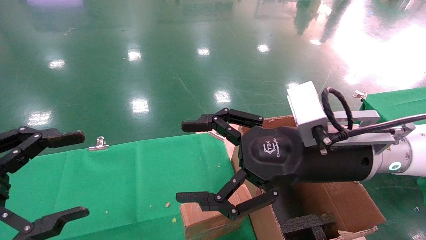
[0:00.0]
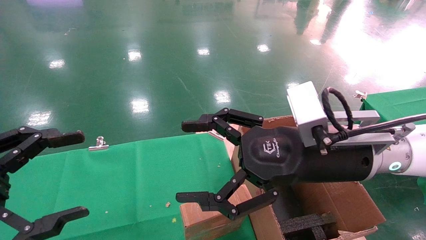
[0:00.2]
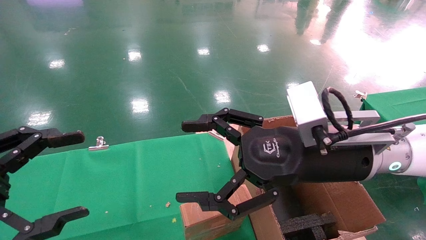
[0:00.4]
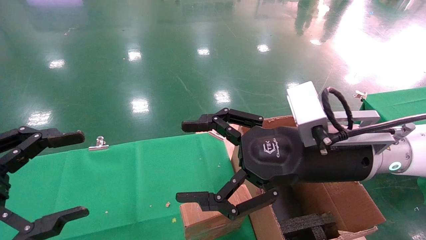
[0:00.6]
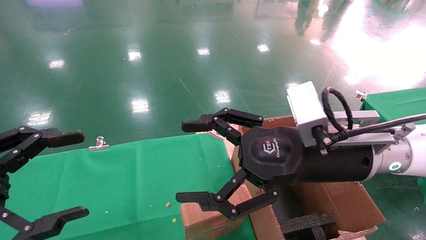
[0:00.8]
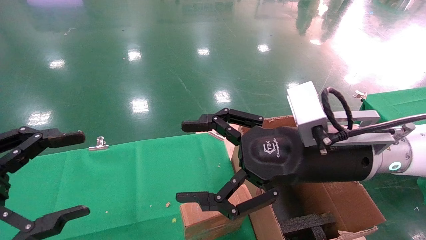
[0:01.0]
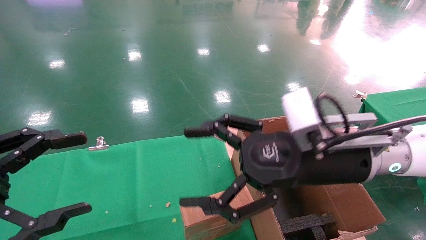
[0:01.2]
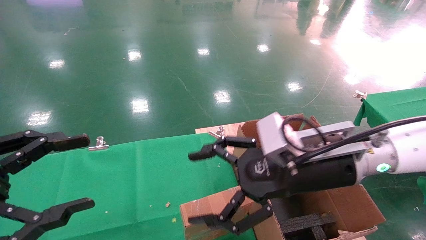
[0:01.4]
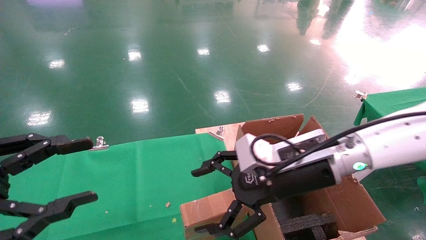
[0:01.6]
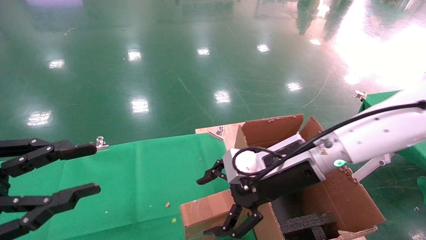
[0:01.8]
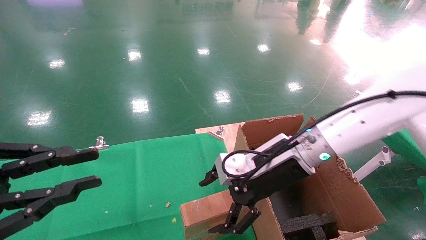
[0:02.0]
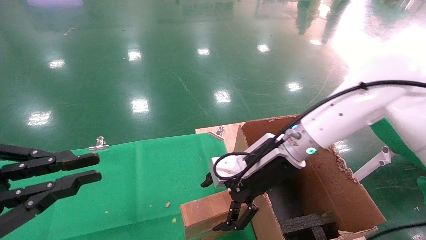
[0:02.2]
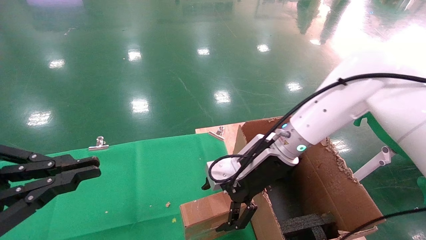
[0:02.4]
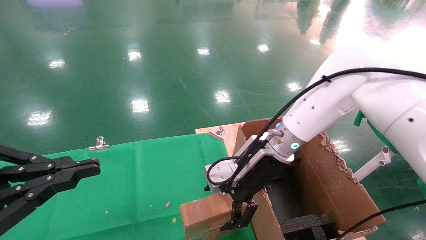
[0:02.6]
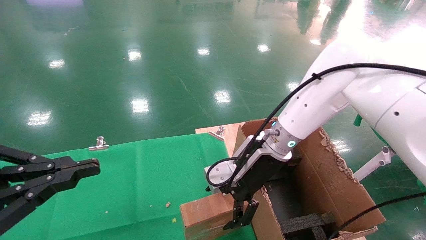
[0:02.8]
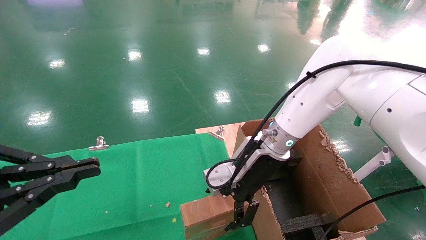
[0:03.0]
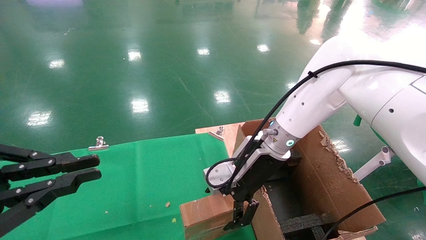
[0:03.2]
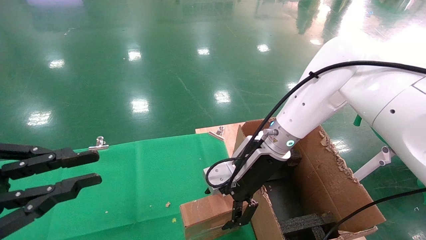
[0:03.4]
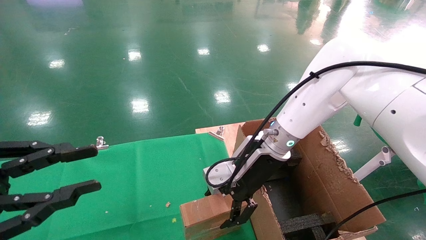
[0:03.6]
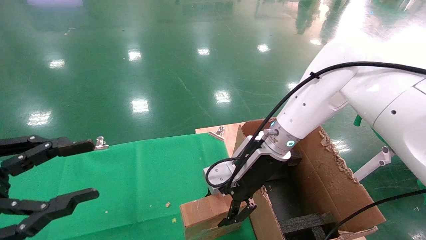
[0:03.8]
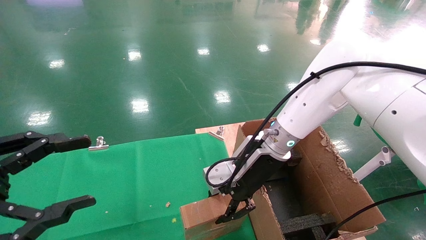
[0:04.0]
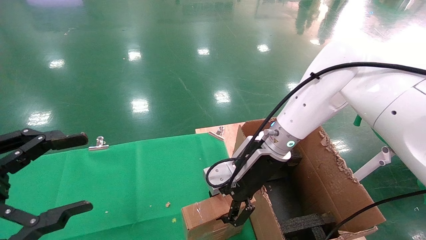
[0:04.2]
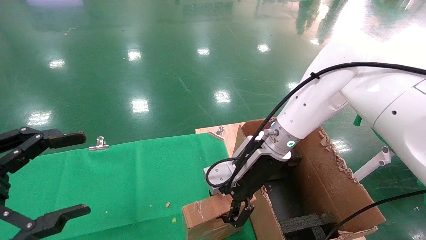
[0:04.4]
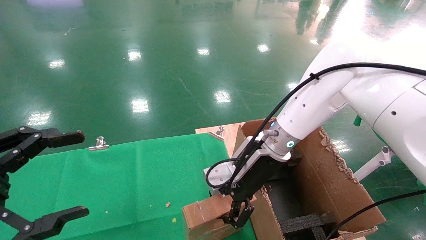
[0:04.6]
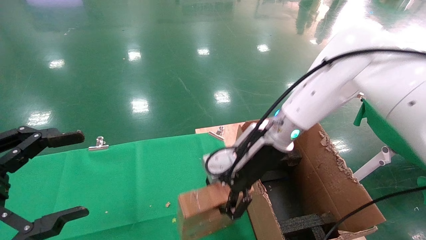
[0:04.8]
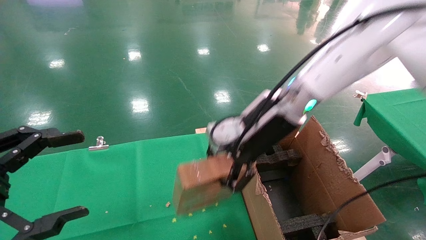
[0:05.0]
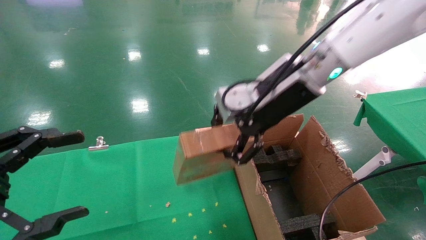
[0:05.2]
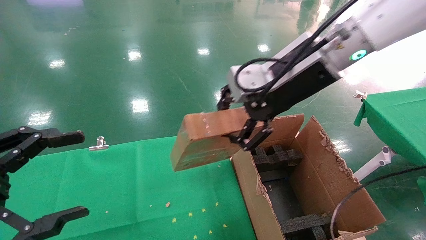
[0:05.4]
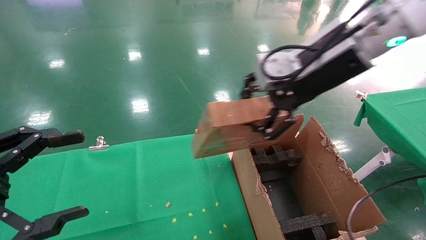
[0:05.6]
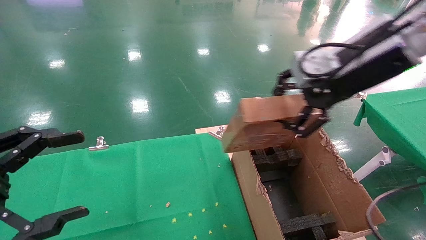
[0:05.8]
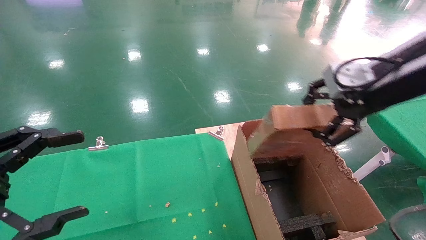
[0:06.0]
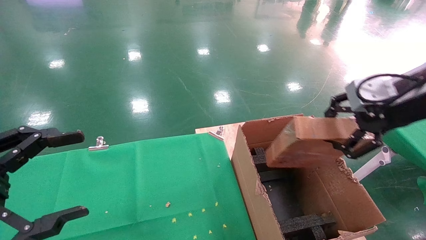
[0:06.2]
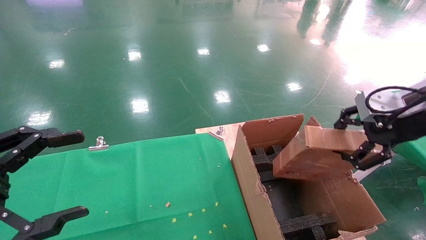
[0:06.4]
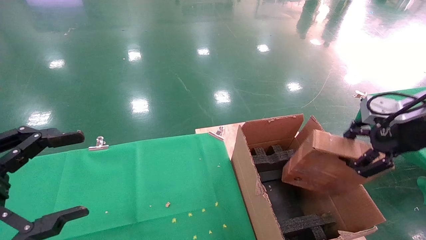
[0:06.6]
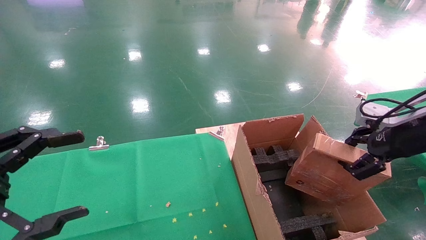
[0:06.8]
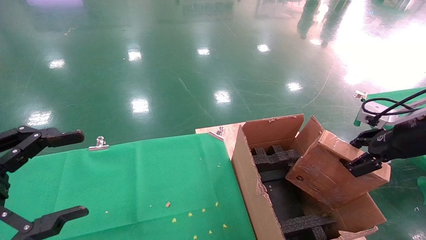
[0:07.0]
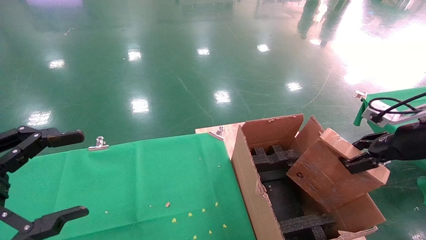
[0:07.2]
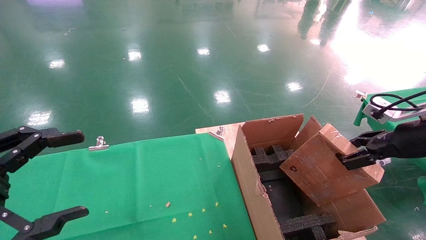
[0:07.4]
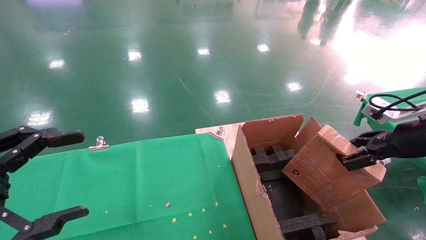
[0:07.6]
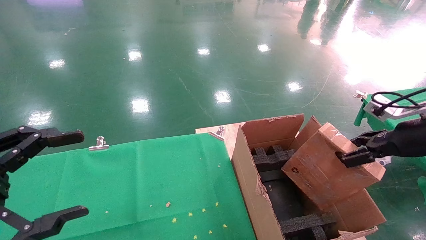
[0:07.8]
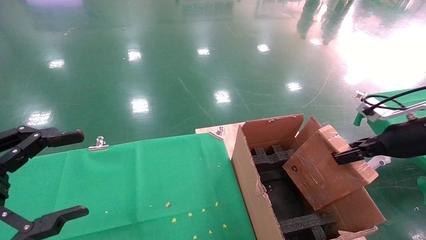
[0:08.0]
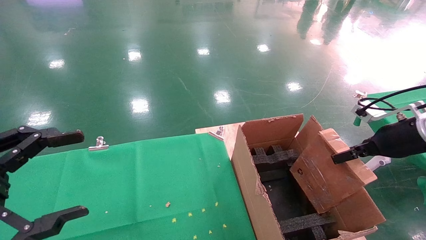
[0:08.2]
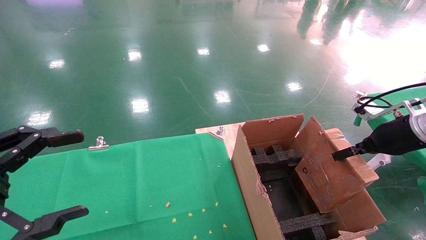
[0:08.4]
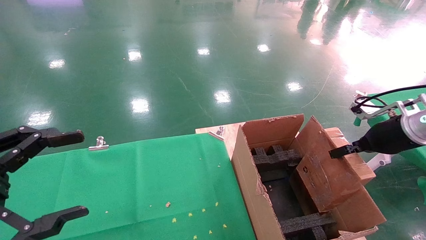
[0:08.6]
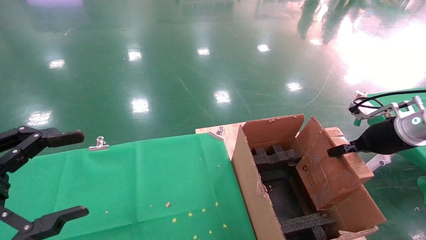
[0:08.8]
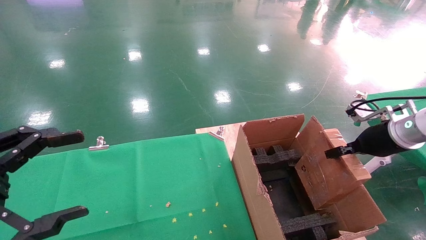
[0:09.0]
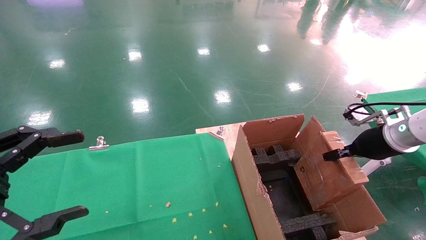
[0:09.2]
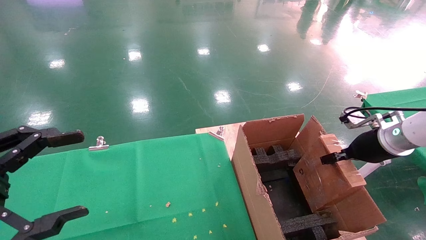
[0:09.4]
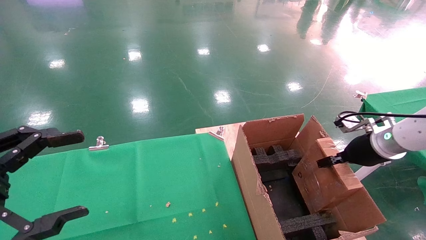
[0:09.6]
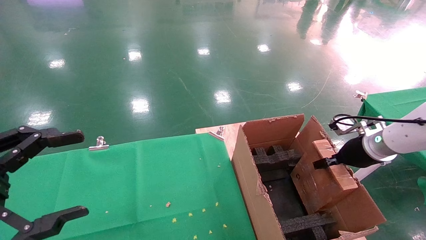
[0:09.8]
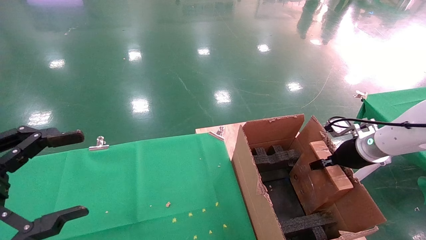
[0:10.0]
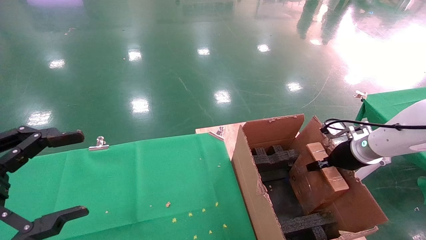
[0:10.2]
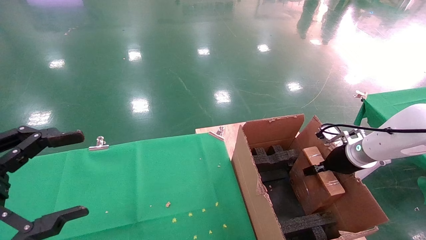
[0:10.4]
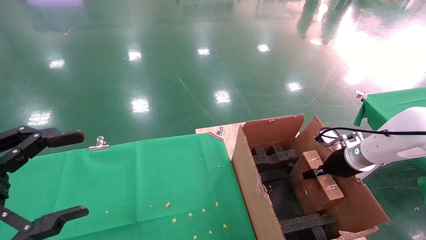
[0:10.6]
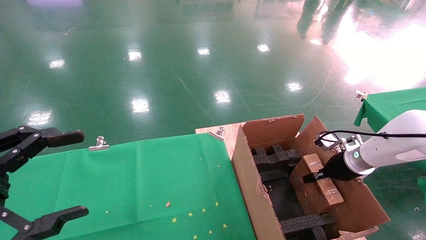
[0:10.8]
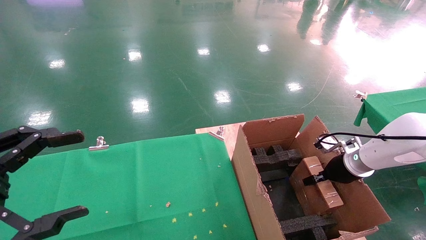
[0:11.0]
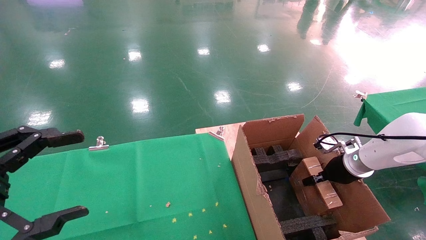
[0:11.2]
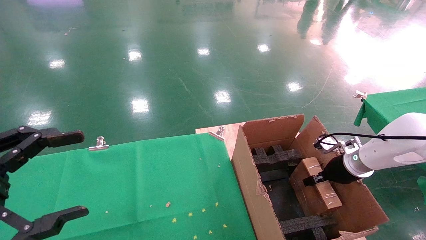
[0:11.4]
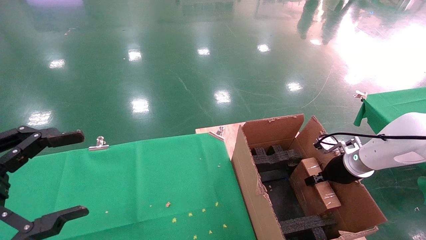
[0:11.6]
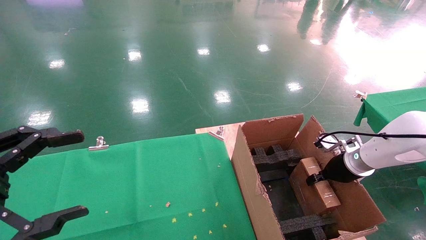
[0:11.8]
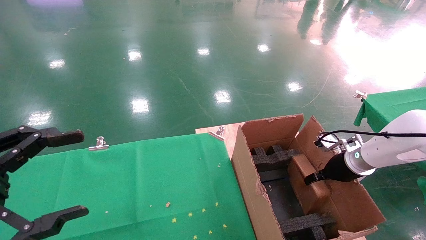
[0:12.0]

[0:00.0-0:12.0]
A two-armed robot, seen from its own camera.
Task of the whole recording: using a robotic arm to pick up a cardboard box and palace it the carton.
Step, 0:01.4 to 0:04.6: Pick up the mouse and the power cord paper box.
0:00.0 to 0:01.6: The right gripper ends up approximately 5 cm from where it was.
0:01.6 to 0:03.0: The right gripper heads forward, covering some 10 cm. The left gripper closes up.
0:03.0 to 0:04.4: The right gripper closes its fingers. The left gripper opens its fingers.
0:04.4 to 0:06.0: The right gripper travels to the right, upward and backward by approximately 30 cm.
0:06.0 to 0:07.6: The right gripper heads to the right and downward, covering about 15 cm.
0:07.6 to 0:09.0: The right gripper travels forward by roughly 5 cm.
0:09.0 to 0:10.4: The right gripper is displaced downward and forward by about 10 cm.
0:10.4 to 0:12.0: The right gripper opens its fingers.

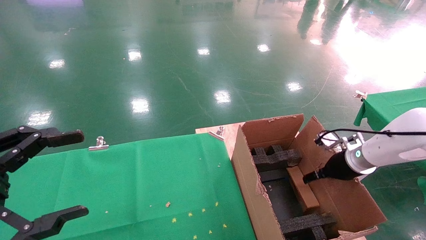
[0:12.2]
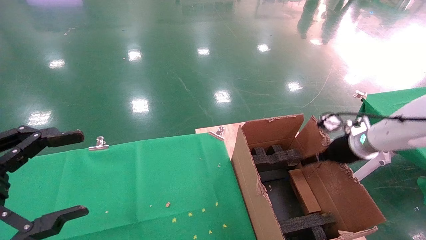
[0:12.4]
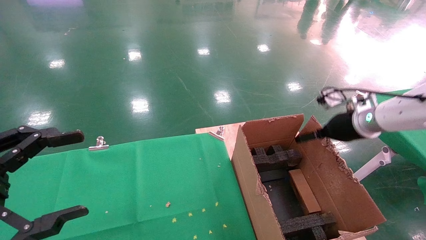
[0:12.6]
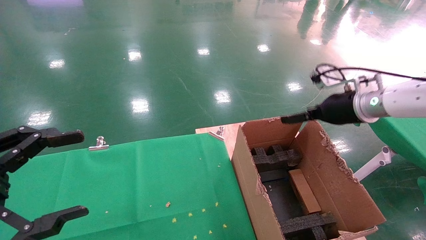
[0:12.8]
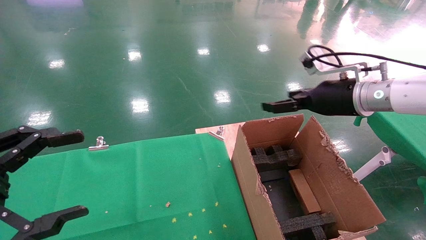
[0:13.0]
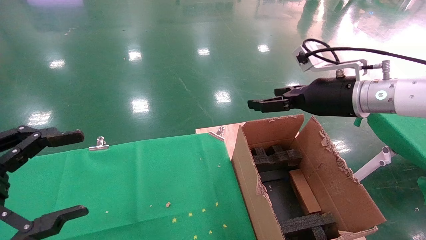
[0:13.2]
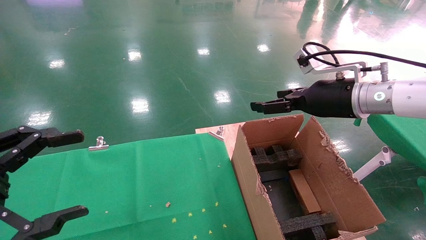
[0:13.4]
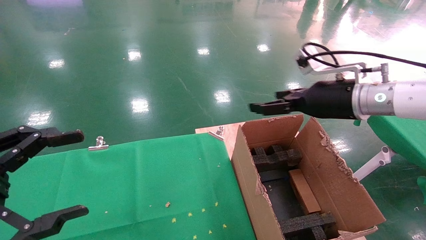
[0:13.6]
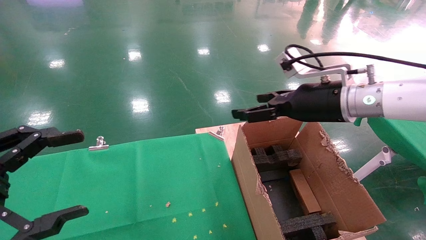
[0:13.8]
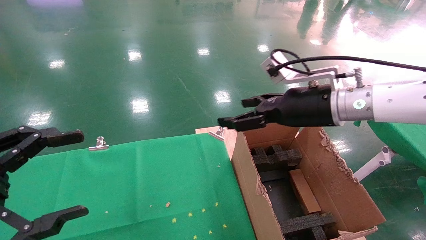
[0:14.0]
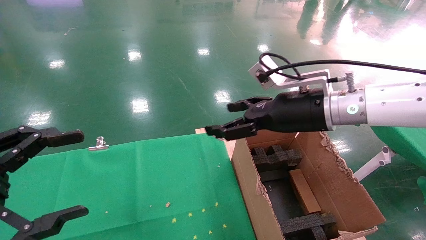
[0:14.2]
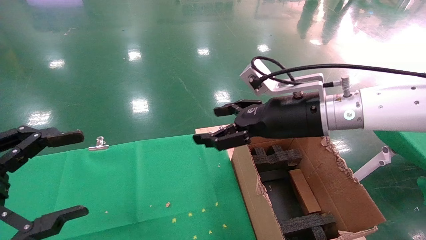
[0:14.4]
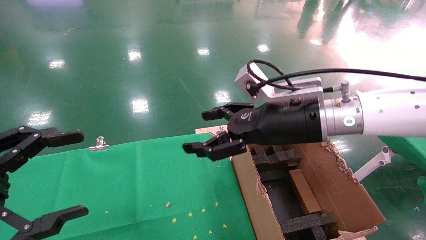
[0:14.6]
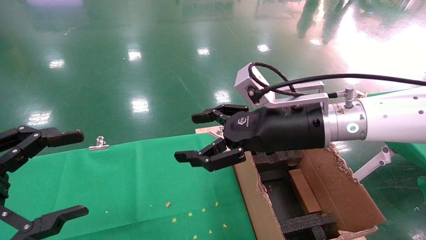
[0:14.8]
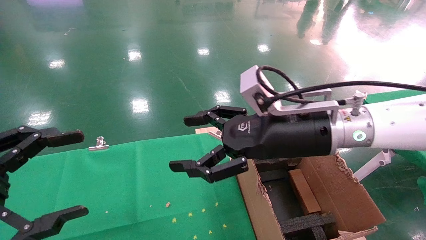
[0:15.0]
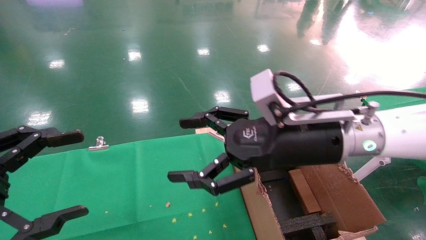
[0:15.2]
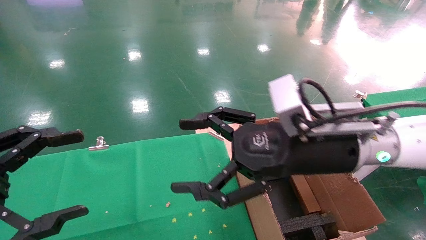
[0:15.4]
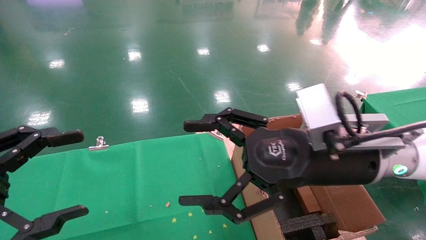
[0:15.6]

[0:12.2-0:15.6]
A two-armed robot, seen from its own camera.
Task of the whole recording: using a robotic arm to pick up a cardboard box and palace it the carton.
0:12.2 to 0:13.8: The right gripper moves upward and to the left, roughly 20 cm, and opens up.
0:13.8 to 0:15.6: The right gripper is displaced backward and to the left by approximately 10 cm.
